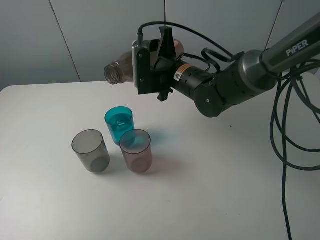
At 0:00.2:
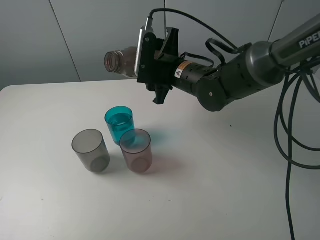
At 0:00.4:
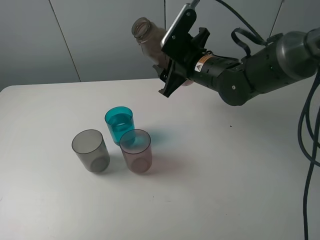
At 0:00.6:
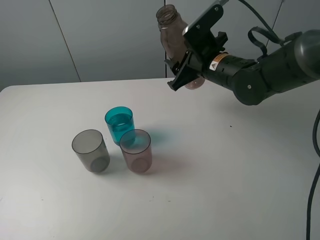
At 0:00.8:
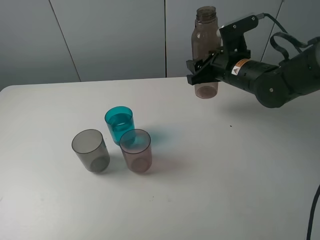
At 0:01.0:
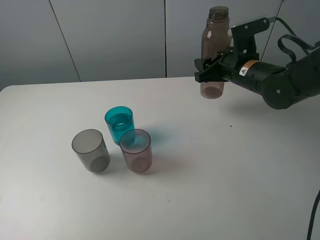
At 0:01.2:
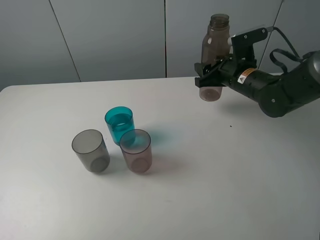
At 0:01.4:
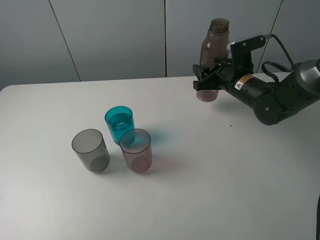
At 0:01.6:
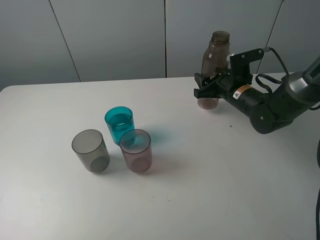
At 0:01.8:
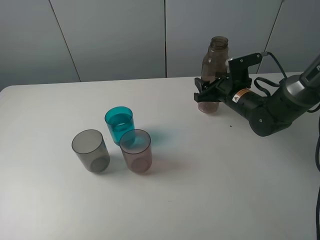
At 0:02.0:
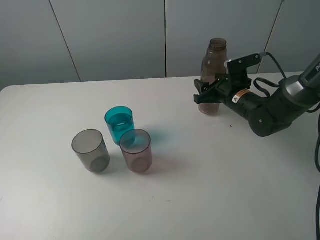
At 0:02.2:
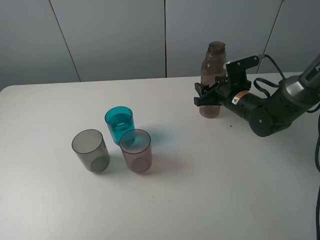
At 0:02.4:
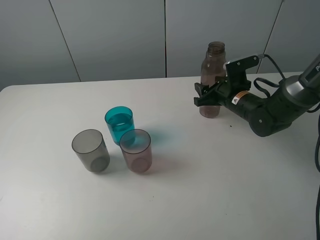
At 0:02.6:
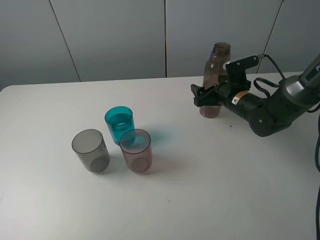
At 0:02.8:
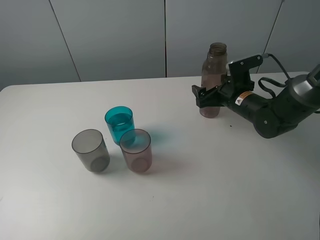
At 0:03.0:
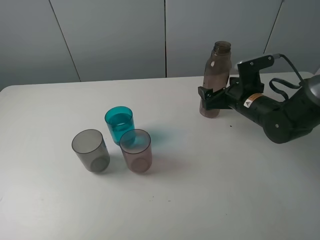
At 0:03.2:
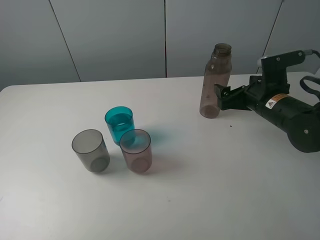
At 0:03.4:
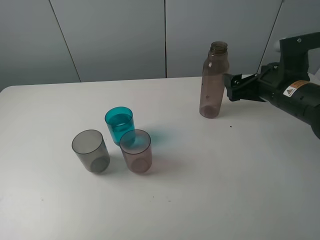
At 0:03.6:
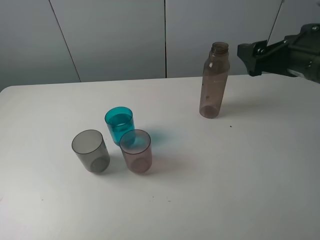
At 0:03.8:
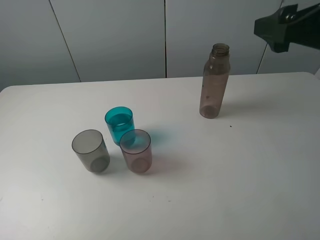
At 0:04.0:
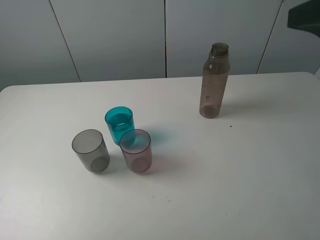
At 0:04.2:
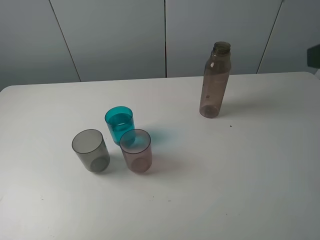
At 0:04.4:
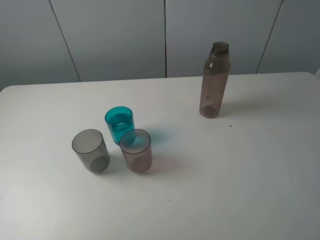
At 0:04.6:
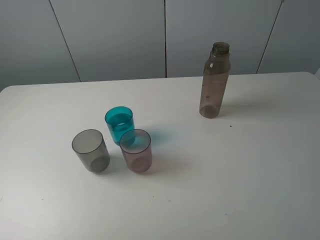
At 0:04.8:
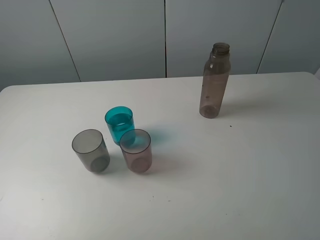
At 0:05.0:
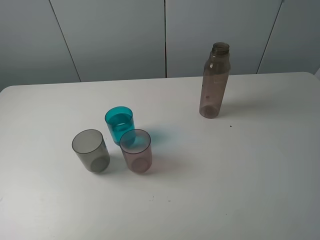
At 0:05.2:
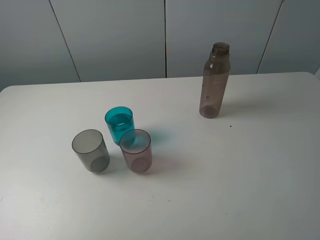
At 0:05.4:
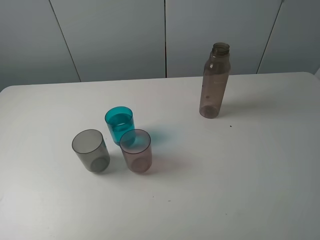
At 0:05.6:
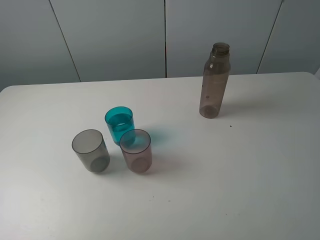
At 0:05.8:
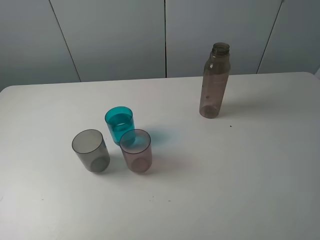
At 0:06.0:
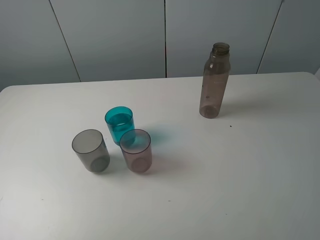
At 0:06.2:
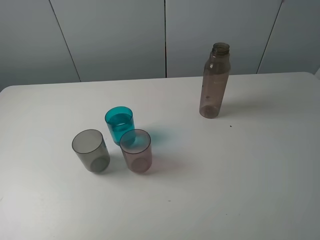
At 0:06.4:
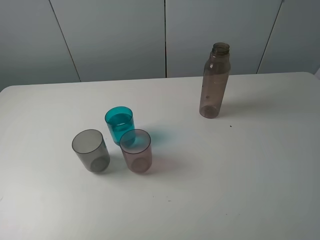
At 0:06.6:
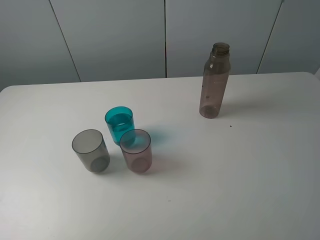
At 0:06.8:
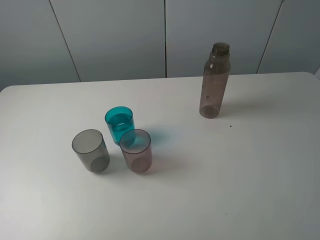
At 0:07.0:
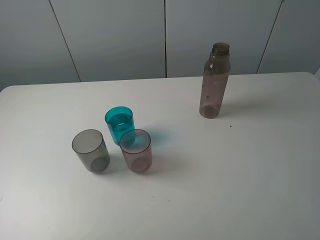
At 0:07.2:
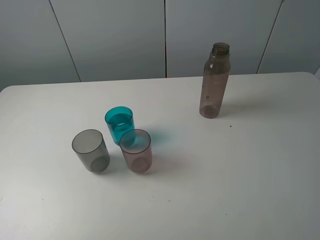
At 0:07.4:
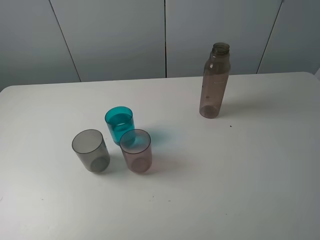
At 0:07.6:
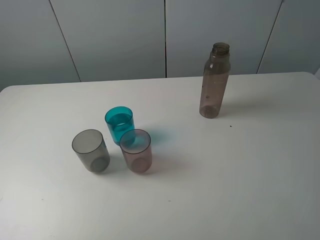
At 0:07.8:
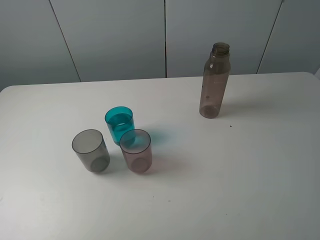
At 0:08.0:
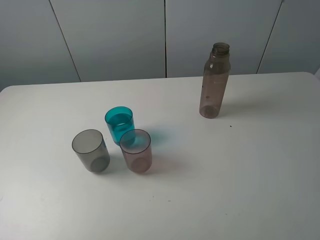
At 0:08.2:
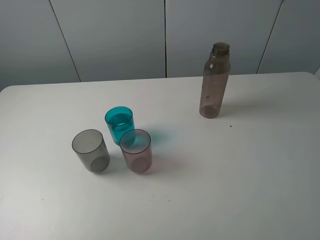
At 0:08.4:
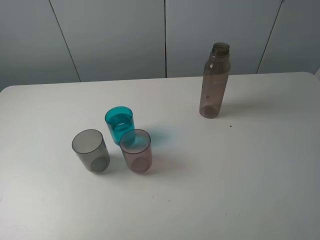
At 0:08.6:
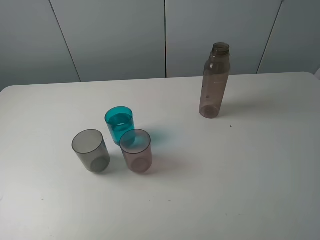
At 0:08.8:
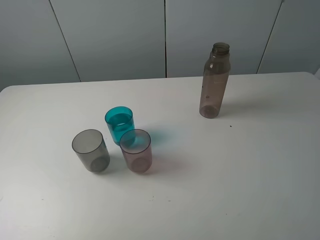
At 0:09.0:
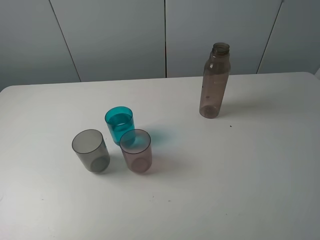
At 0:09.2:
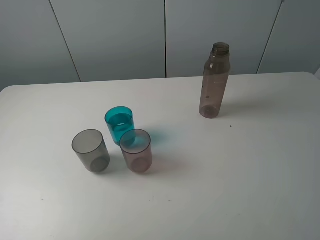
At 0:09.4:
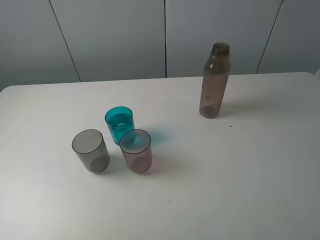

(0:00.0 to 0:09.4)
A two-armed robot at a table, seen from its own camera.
Task of the whole recording: pick up the bottle filled with water and pour water into the middle cup of the three cups.
Step, 0:00.0 - 0:03.8: Place the brown bottle with the right gripper.
0:00.0 - 0:01.6: The right gripper is displaced to the right and downward by approximately 15 cm.
0:01.6 - 0:03.2: The right gripper goes roughly 10 cm backward, and opens up.
0:03.2 - 0:04.8: The right gripper moves backward and upward, approximately 30 cm.
0:06.2 - 0:09.4: Neither gripper changes place.
